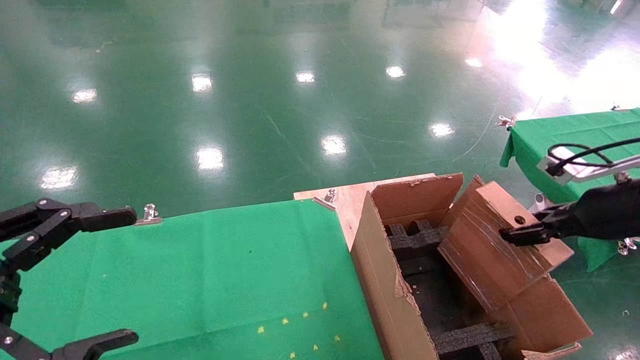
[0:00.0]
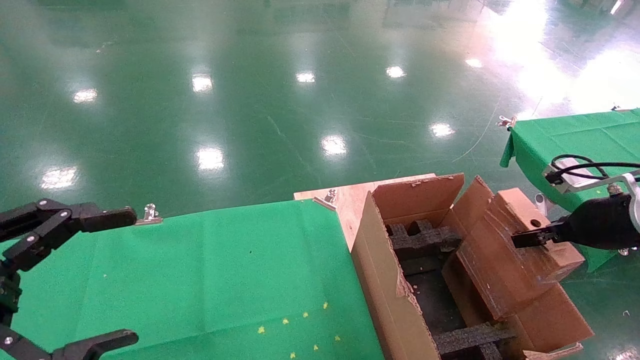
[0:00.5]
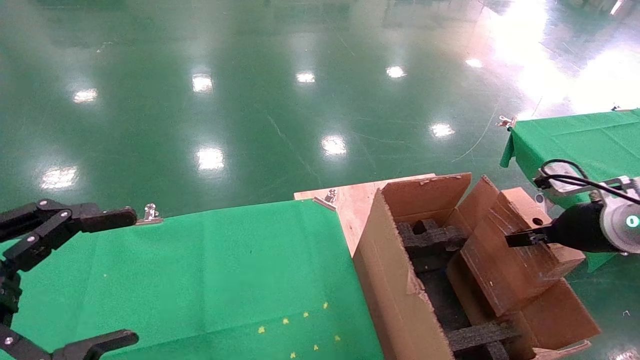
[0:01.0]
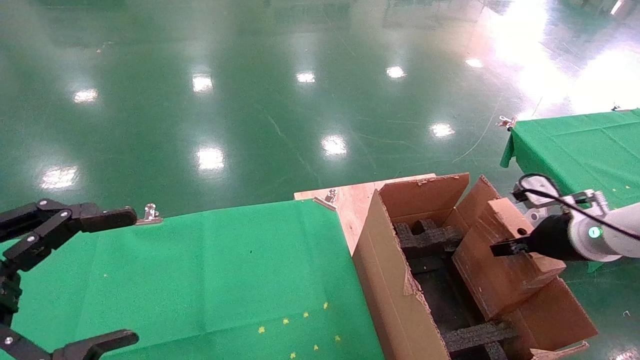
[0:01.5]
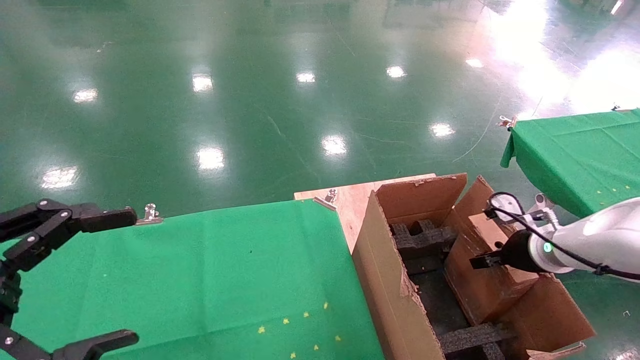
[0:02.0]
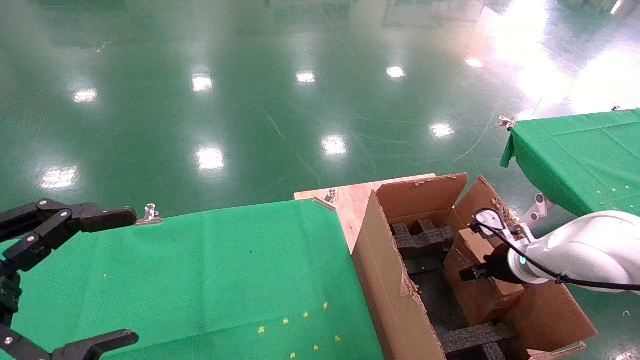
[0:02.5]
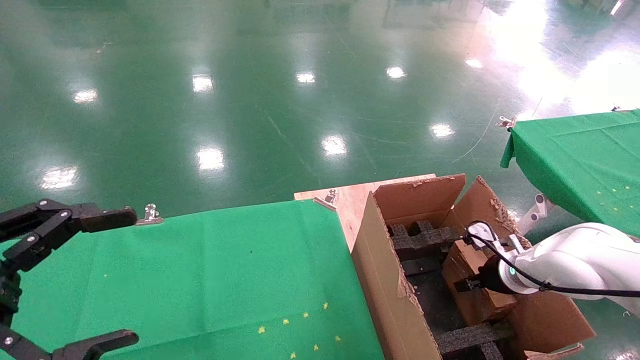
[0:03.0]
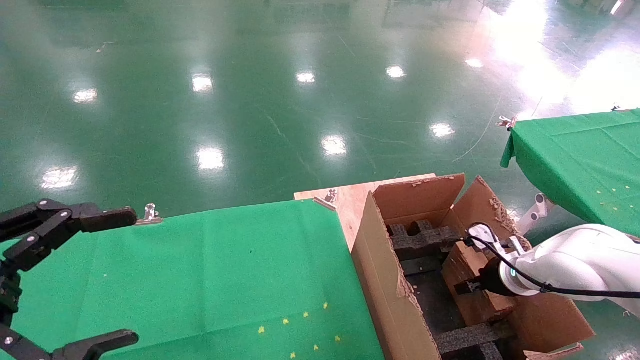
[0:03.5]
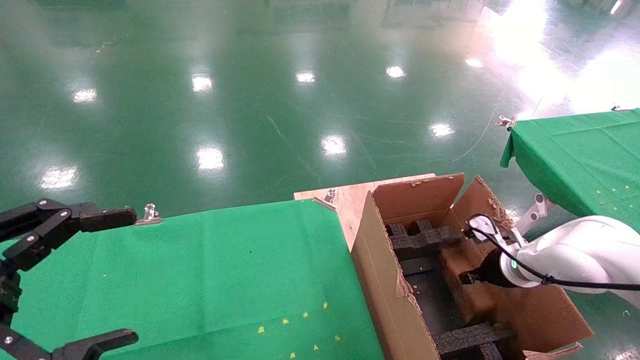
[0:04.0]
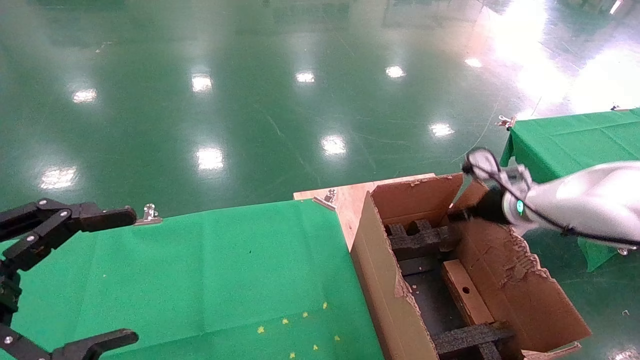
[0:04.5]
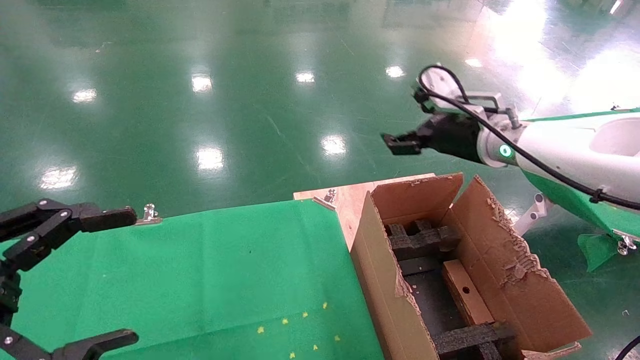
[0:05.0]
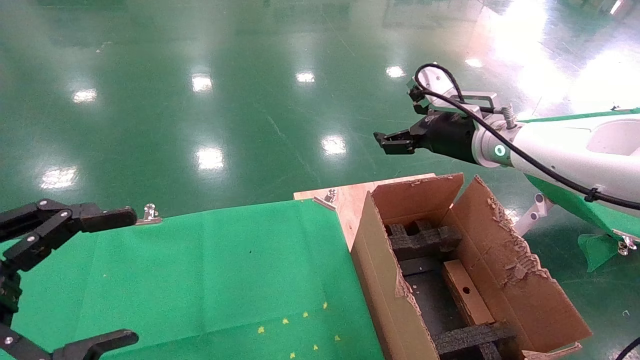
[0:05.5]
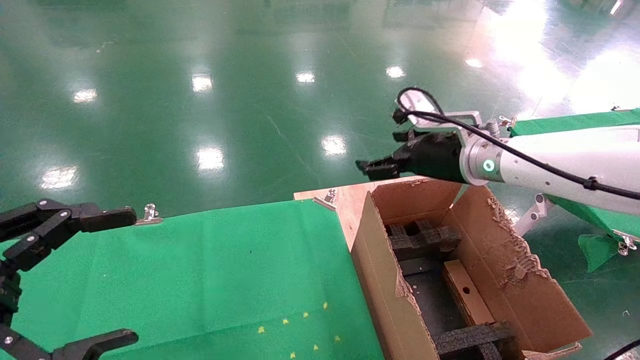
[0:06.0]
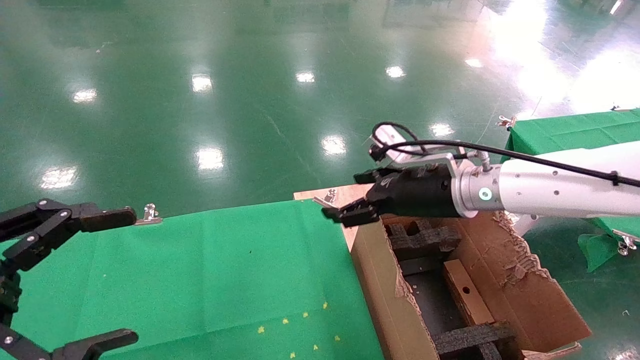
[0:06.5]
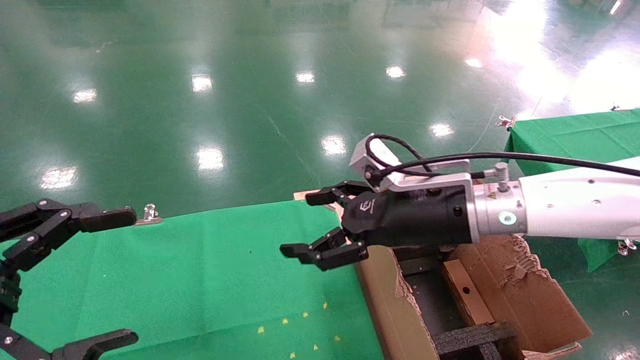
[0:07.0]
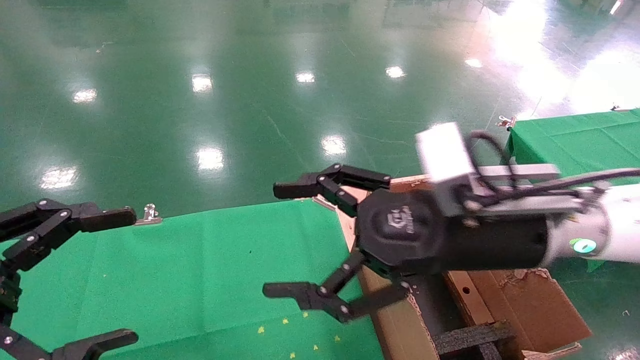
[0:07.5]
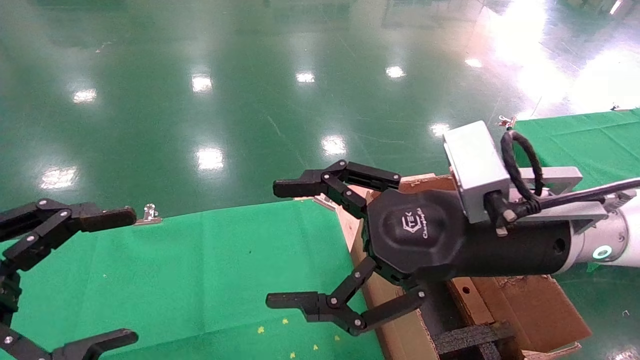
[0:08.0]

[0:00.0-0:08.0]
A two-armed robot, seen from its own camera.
Task of the whole recording: using a robotic arm to pick up a cardboard box and palace it the carton.
Step, 0:00.0 to 0:04.0: Place the mouse and the power cord paper box into the container.
0:00.0 to 0:02.0: The right gripper is displaced downward and forward by approximately 15 cm.
0:02.0 to 0:04.0: The right gripper changes place by some 5 cm, and opens its fingers.
0:04.0 to 0:06.0: The right gripper moves upward and to the left, some 25 cm, and opens its fingers.
0:06.0 to 0:08.0: The right gripper is displaced backward by approximately 15 cm.
